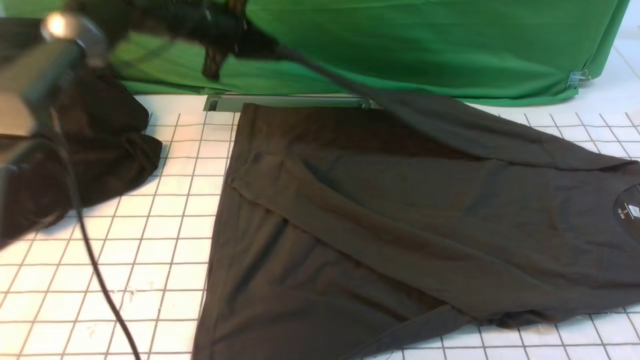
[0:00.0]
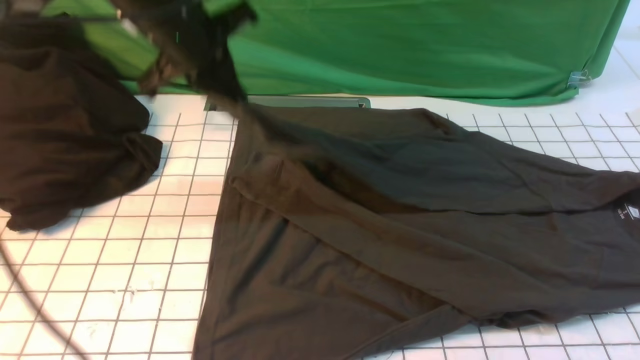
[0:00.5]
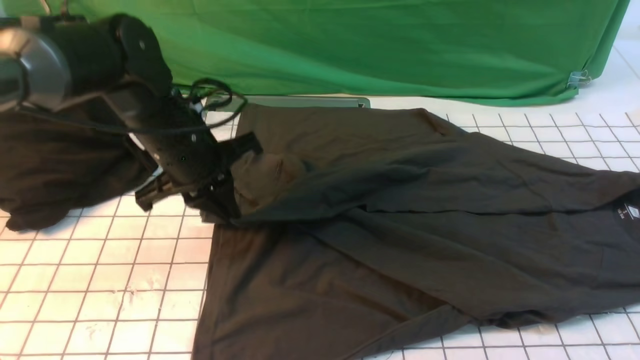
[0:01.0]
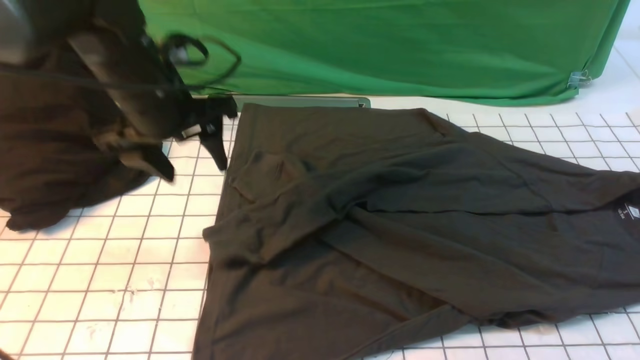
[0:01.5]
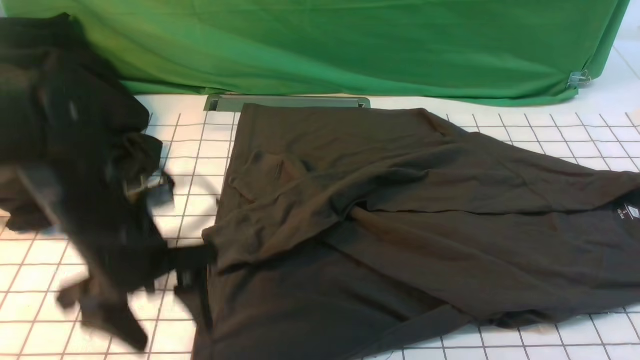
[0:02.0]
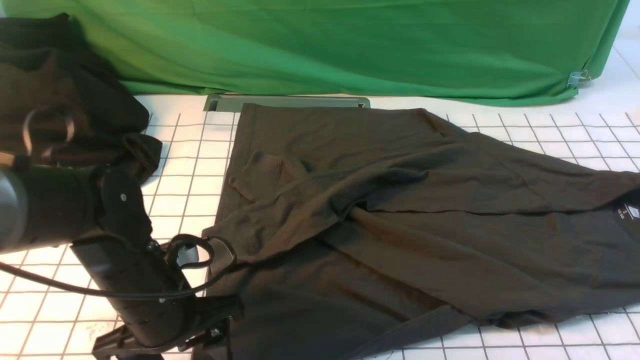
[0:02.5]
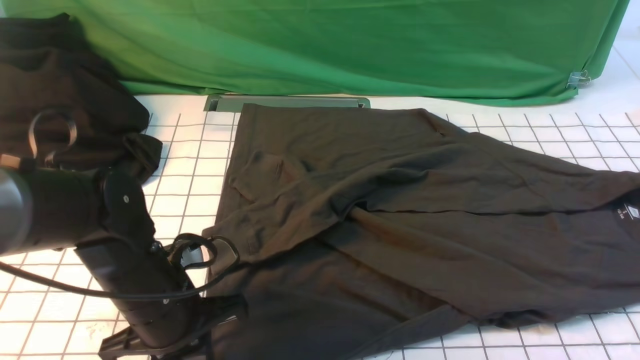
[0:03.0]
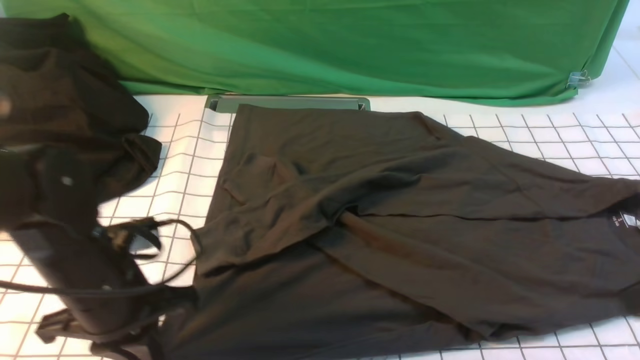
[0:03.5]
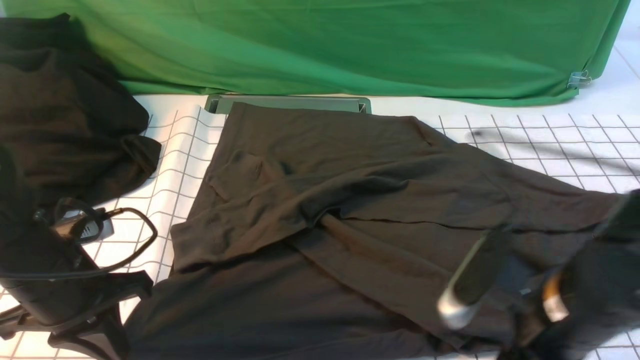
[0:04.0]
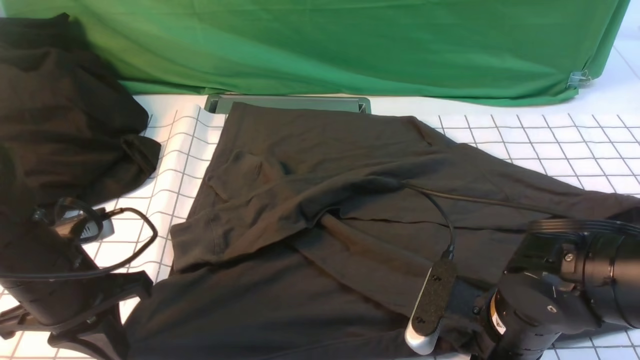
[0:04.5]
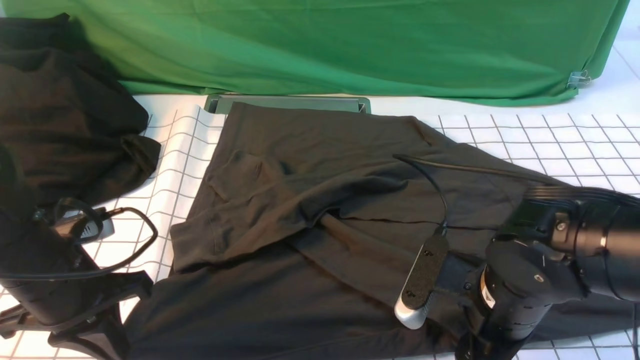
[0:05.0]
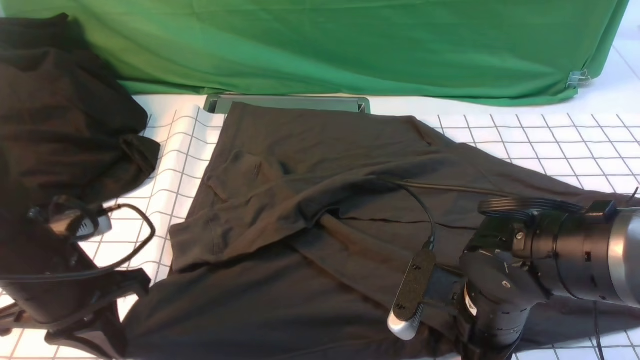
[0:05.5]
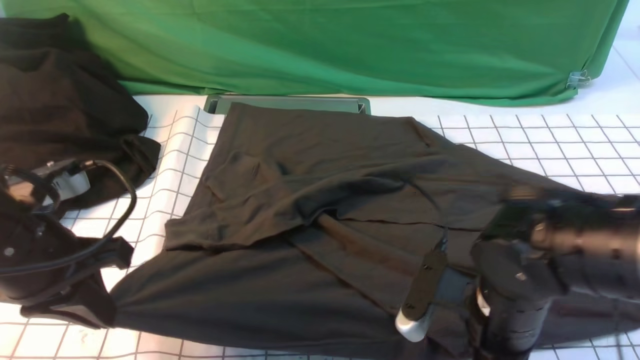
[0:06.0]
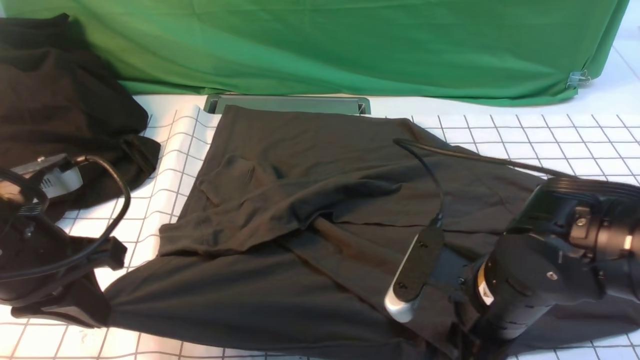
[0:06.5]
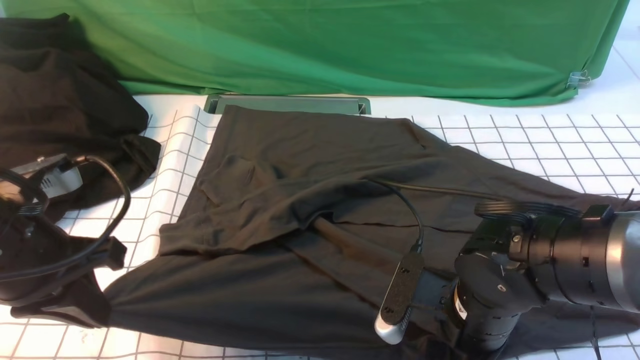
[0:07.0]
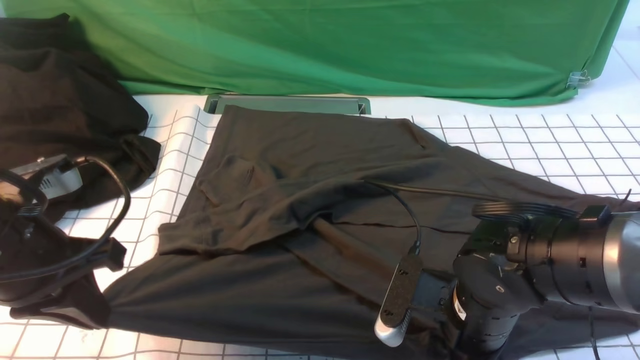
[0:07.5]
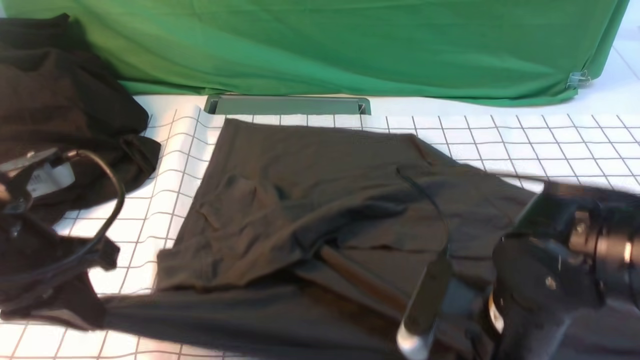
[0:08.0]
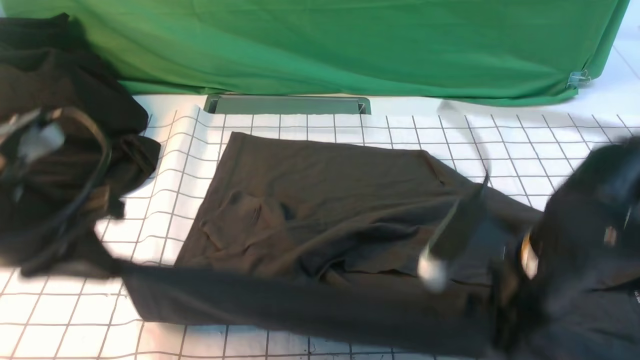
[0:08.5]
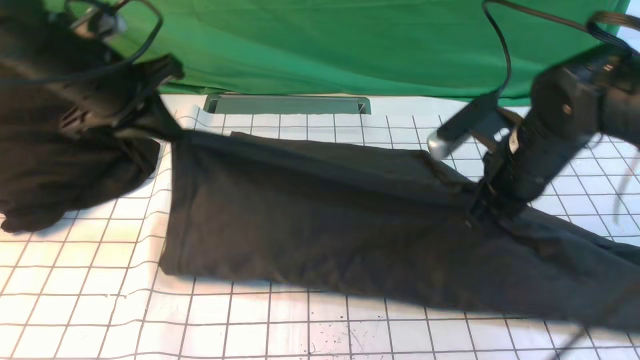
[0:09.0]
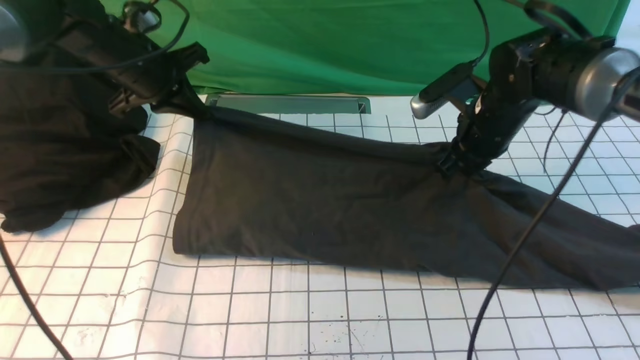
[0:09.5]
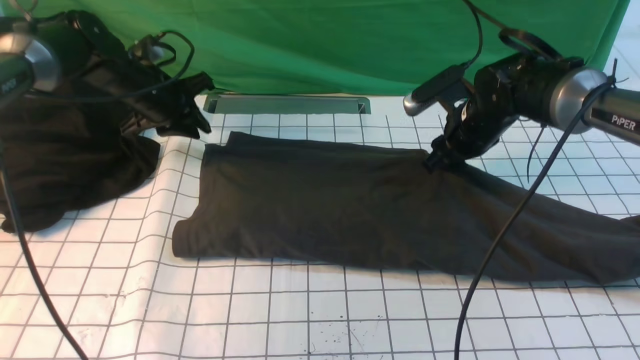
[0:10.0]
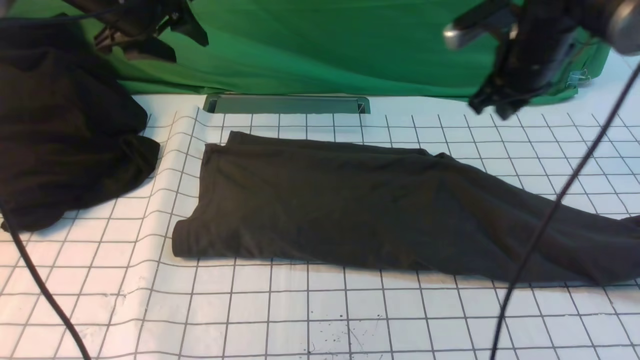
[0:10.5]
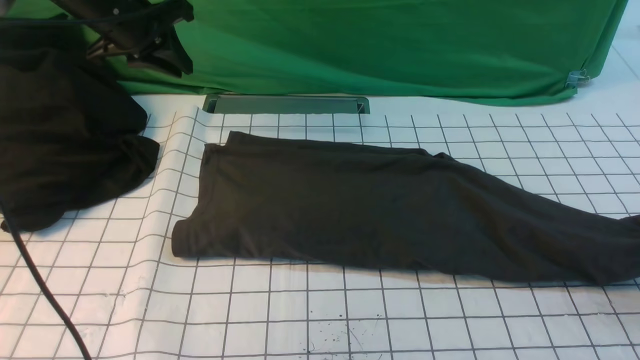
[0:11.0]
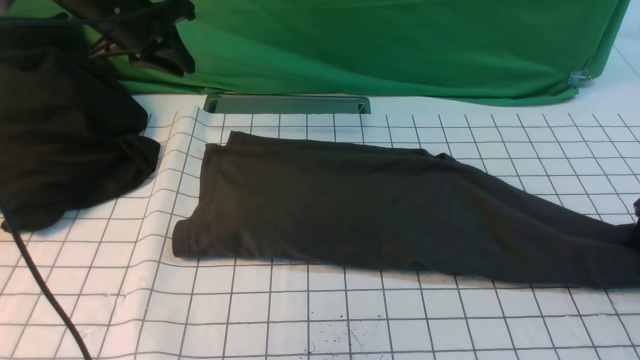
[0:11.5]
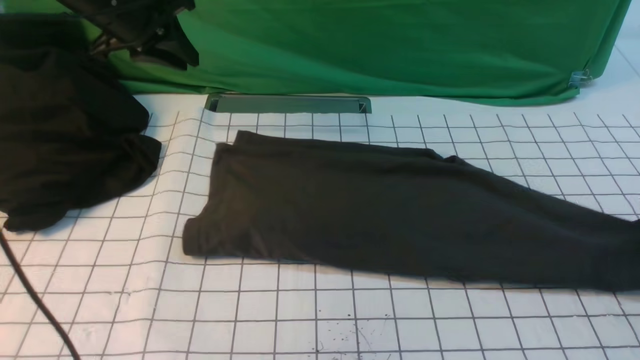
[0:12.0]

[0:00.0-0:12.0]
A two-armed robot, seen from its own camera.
Step, 0:00.0 to 0:01.0: use the left arm to drag and drop the cuff onto the cuff closest to the left arm.
Step, 0:01.5 to 0:07.5: use both arms simultaneously to clamp the lower edge of the clothing fabric.
Step, 0:08.0 to 0:10.0: use both arms to drag the lower edge of the fabric forward and fold it over the upper edge.
0:00.0 to 0:02.0: The left gripper goes some 25 cm backward, and opens.
0:02.0 to 0:04.0: The left gripper travels to the left by roughly 5 cm, and closes up, while the right gripper heads downward, to the left and forward, covering about 20 cm, and opens.
0:04.0 to 0:06.0: The left gripper heads upward, covering roughly 5 cm, while the right gripper changes place by roughly 5 cm, and closes its fingers.
0:06.0 to 0:08.0: The right gripper opens, then closes once more.
0:08.0 to 0:10.0: The two grippers go some 30 cm forward. The right gripper opens, while the left gripper opens.
0:10.0 to 0:12.0: The left gripper moves upward, some 10 cm, and opens, then closes once more. Meanwhile the right gripper heads to the right, covering some 30 cm, and closes.

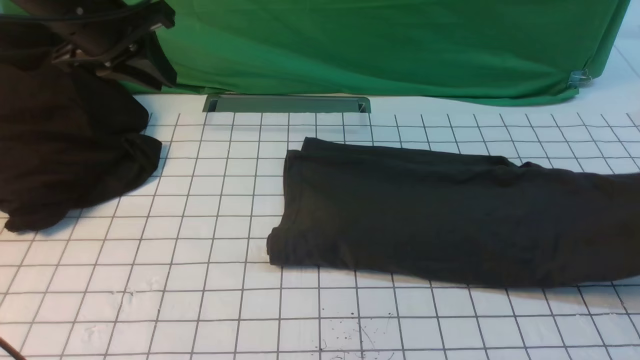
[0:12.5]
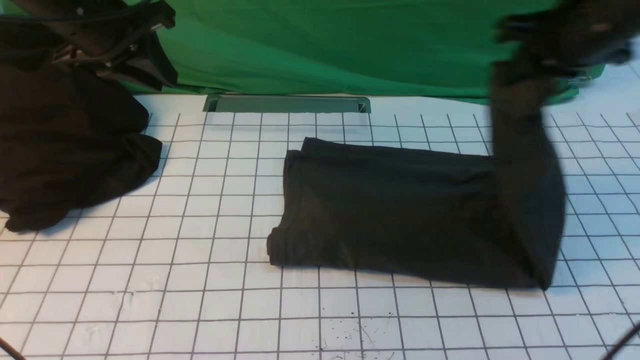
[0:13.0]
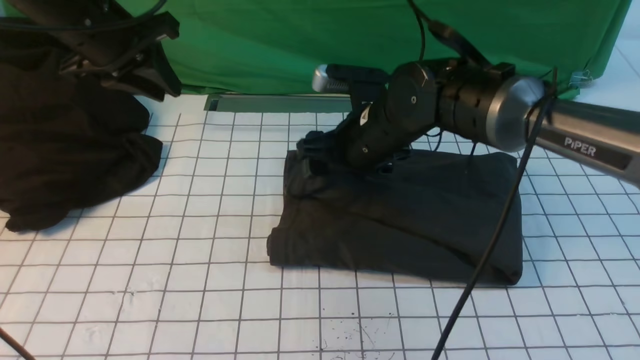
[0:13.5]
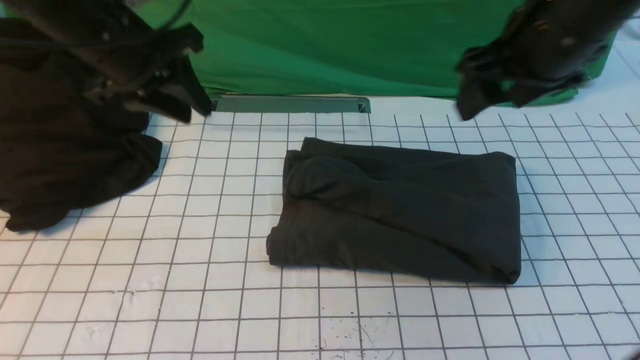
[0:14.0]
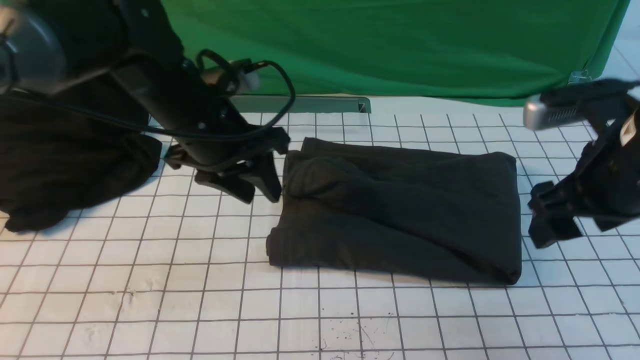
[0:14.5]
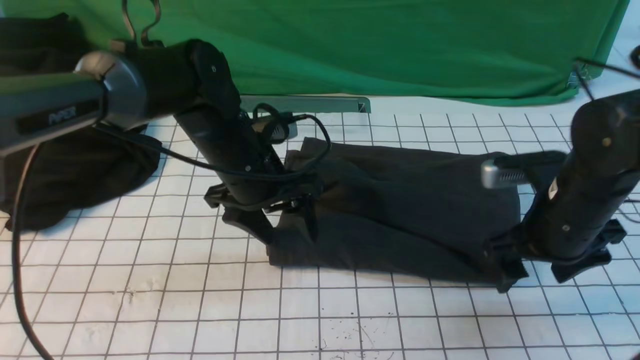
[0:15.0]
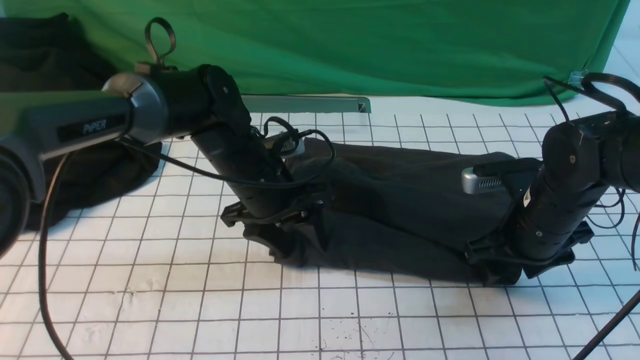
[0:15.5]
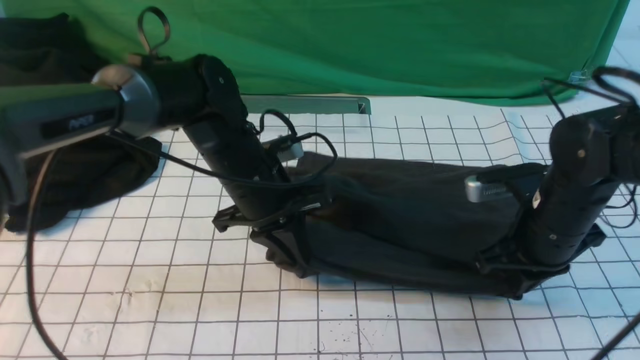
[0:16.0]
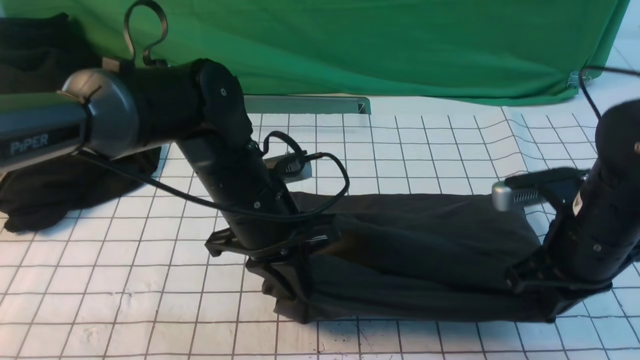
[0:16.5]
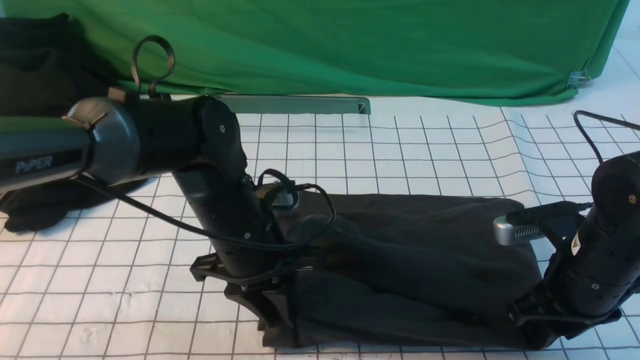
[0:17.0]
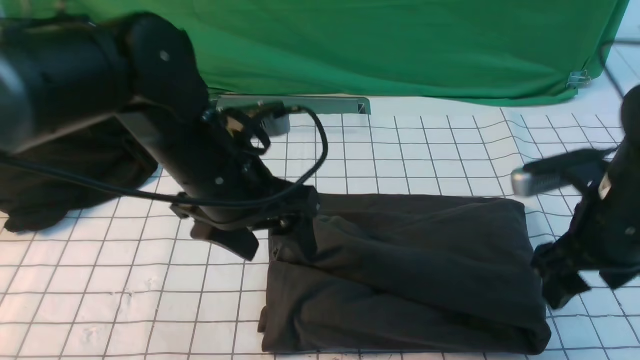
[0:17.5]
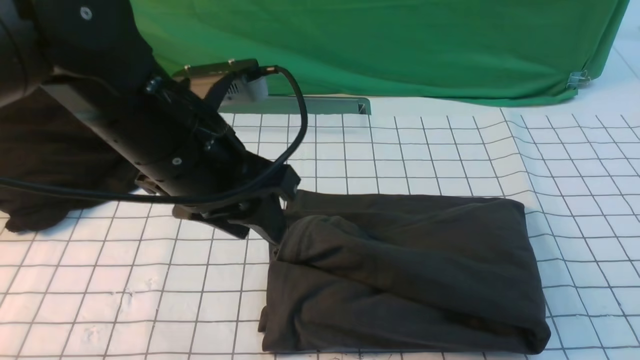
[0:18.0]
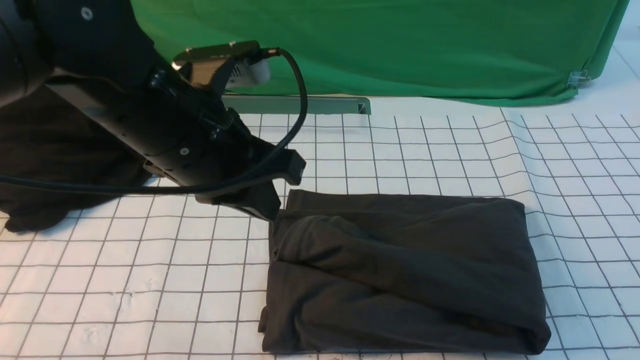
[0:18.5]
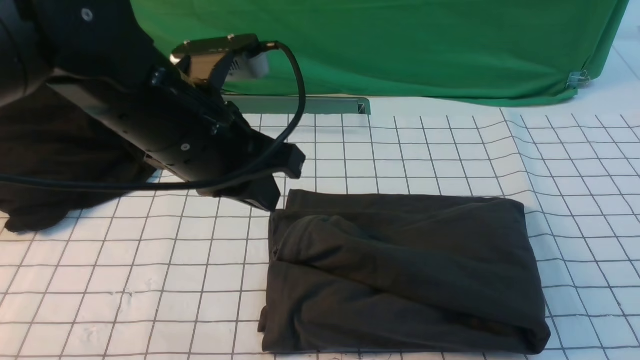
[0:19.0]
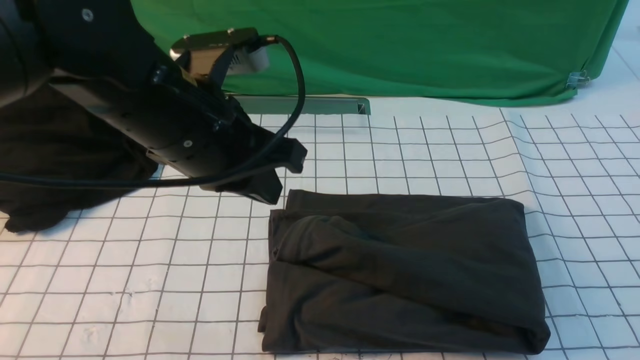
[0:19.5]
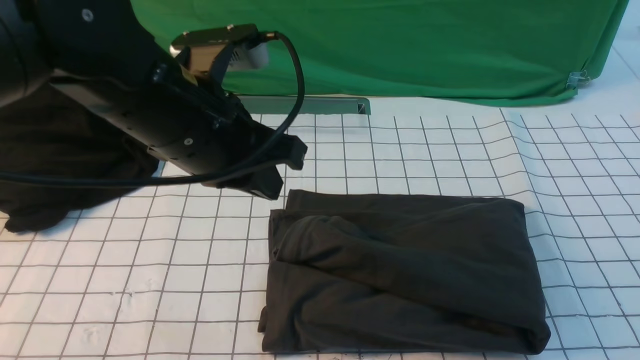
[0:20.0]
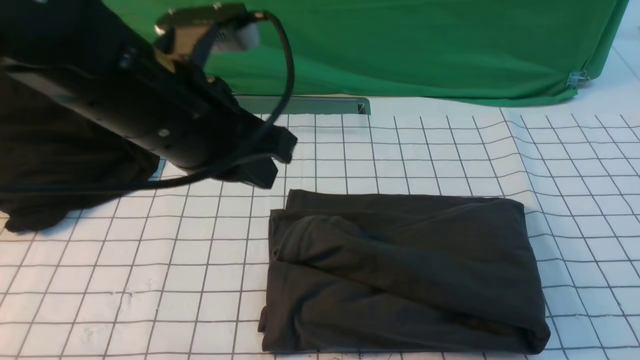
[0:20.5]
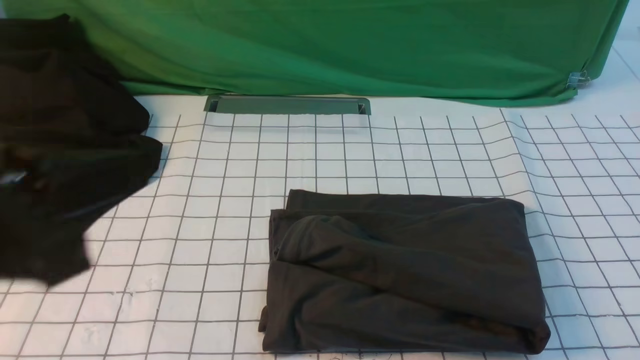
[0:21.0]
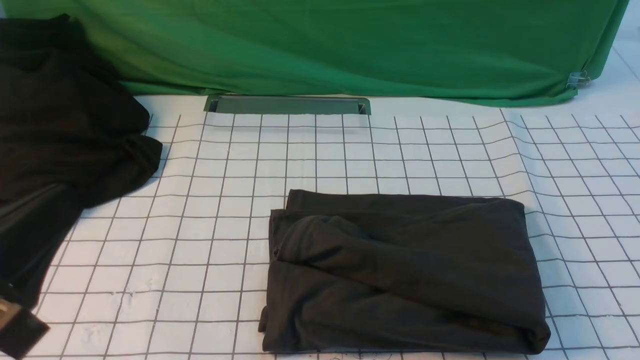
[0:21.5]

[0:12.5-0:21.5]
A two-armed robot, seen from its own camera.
Step, 0:12.5 to 0:13.5: use the right arm to drag the right edge of the fabric to the left and folds it over the left edge.
0:12.5 to 0:14.5: The right gripper is displaced to the left by some 25 cm, and opens its fingers. The left gripper travels to the right, downward and backward by approximately 15 cm, and opens.
0:14.5 to 0:17.0: The left gripper is displaced backward and downward by approximately 10 cm, and closes, then opens again. Meanwhile the right gripper travels downward by approximately 10 cm, and closes.
0:17.0 to 0:19.5: The left gripper travels upward by roughly 15 cm, and closes its fingers. Meanwhile the right gripper heads backward and upward, covering some 25 cm.
0:19.5 to 0:21.5: The left gripper moves backward and to the left, roughly 20 cm. The right gripper moves downward, roughly 10 cm.
